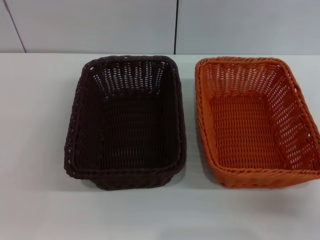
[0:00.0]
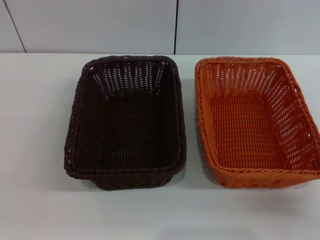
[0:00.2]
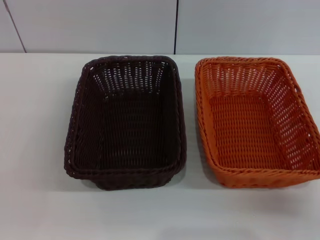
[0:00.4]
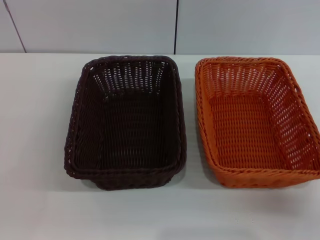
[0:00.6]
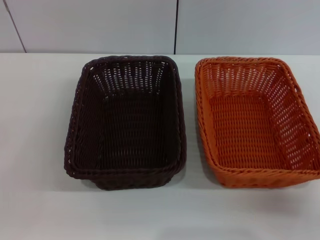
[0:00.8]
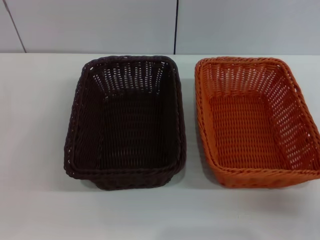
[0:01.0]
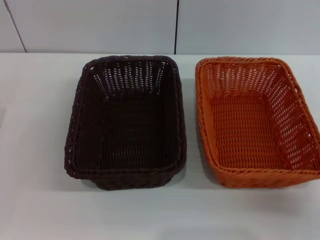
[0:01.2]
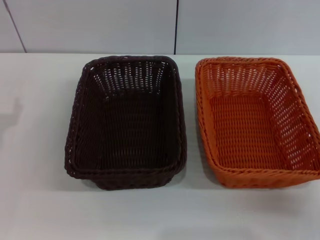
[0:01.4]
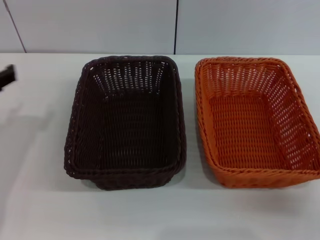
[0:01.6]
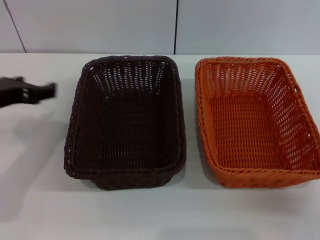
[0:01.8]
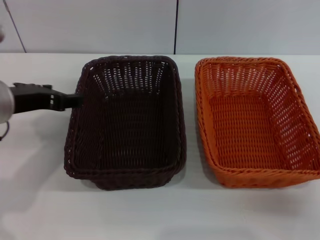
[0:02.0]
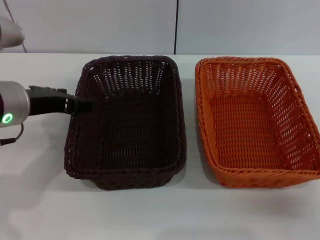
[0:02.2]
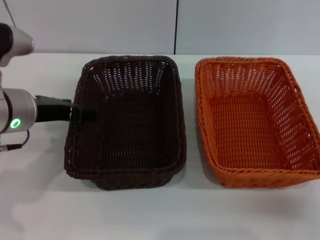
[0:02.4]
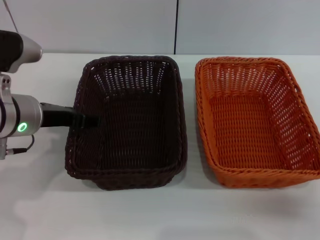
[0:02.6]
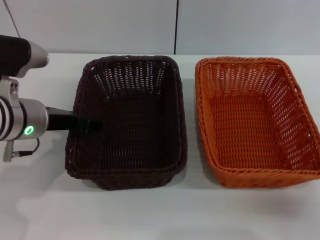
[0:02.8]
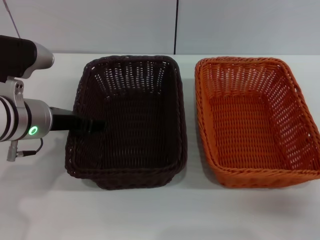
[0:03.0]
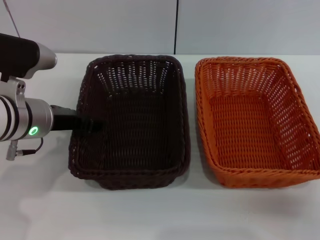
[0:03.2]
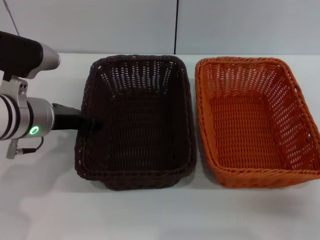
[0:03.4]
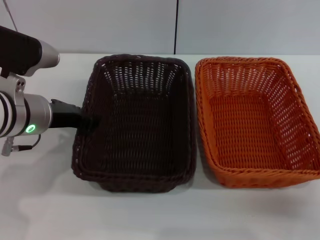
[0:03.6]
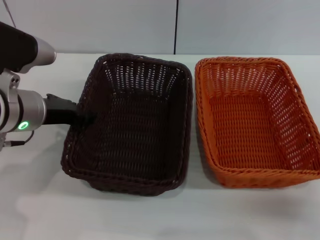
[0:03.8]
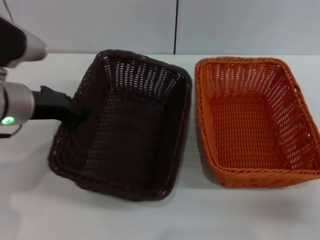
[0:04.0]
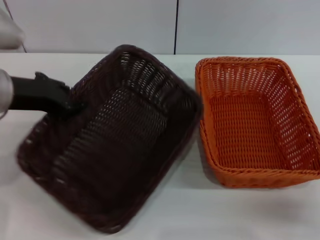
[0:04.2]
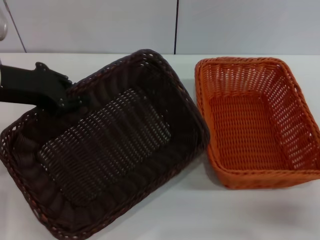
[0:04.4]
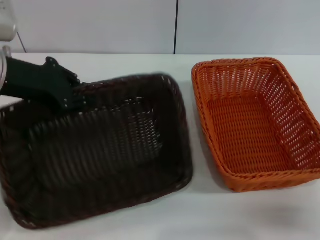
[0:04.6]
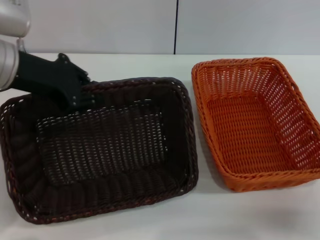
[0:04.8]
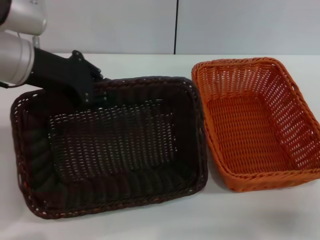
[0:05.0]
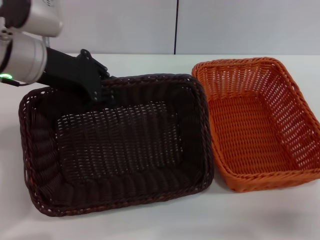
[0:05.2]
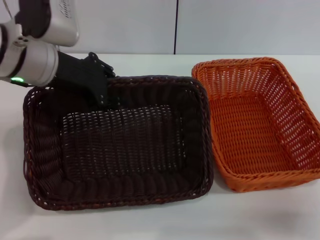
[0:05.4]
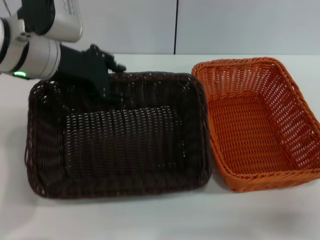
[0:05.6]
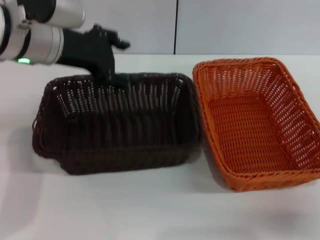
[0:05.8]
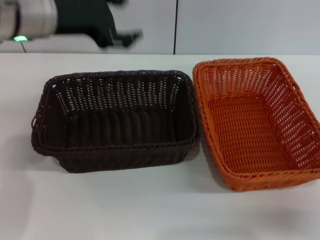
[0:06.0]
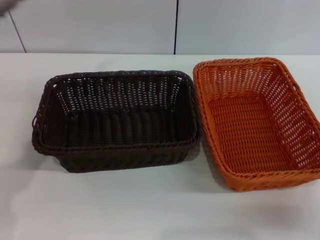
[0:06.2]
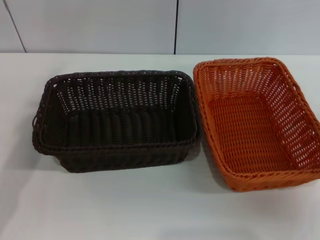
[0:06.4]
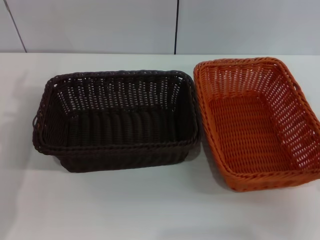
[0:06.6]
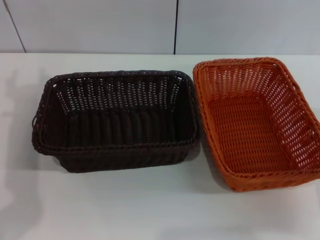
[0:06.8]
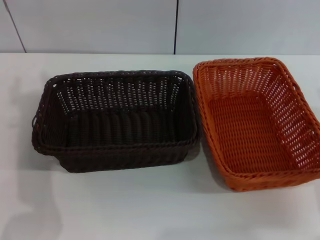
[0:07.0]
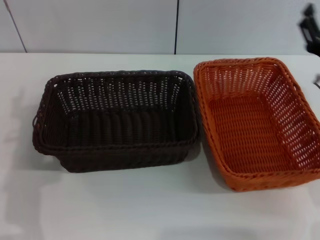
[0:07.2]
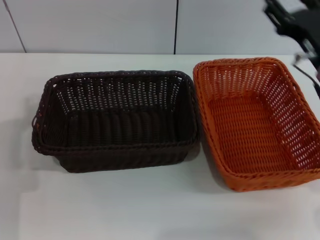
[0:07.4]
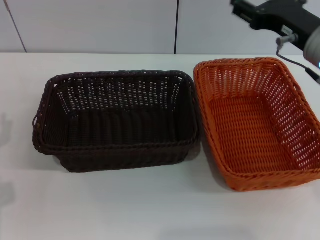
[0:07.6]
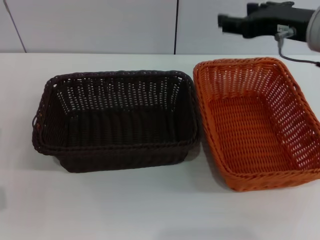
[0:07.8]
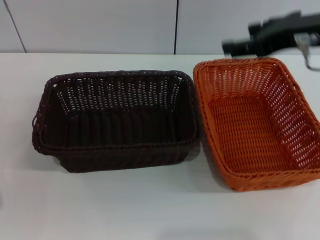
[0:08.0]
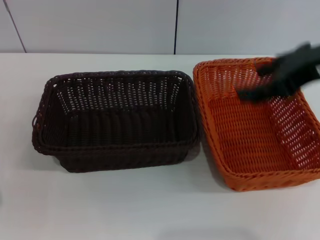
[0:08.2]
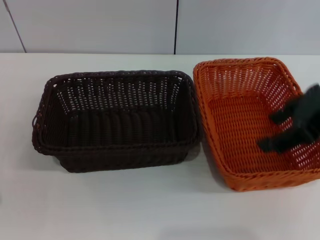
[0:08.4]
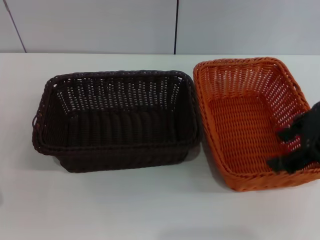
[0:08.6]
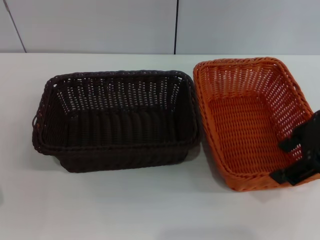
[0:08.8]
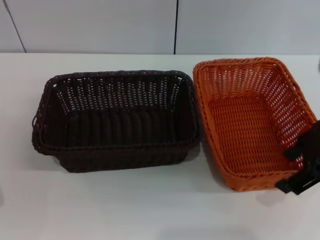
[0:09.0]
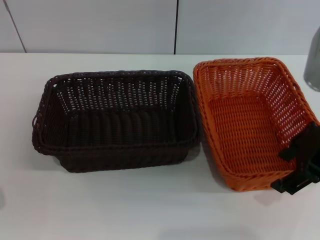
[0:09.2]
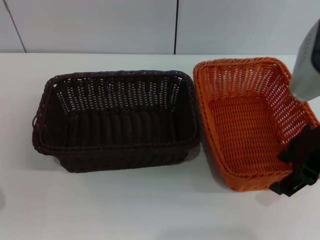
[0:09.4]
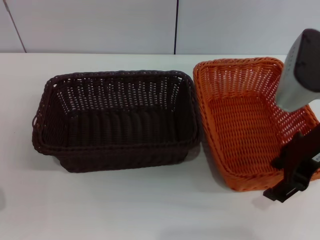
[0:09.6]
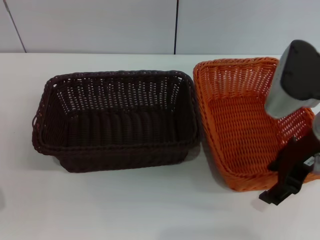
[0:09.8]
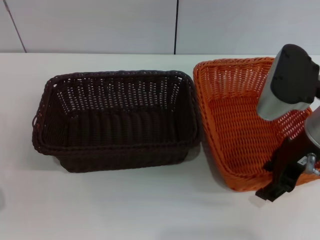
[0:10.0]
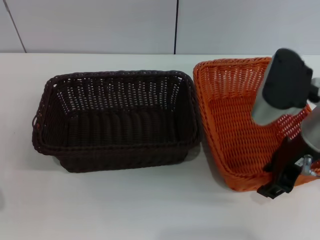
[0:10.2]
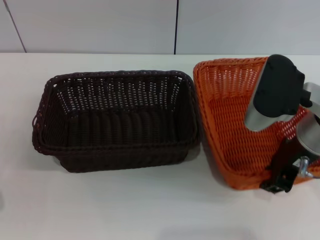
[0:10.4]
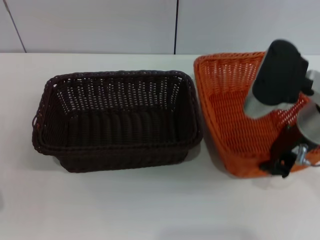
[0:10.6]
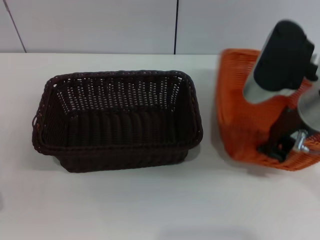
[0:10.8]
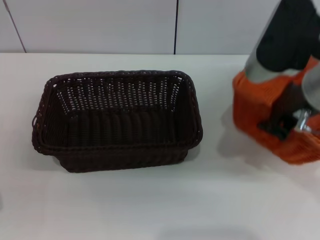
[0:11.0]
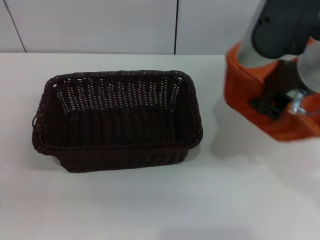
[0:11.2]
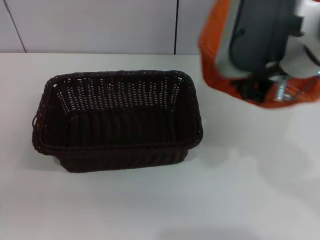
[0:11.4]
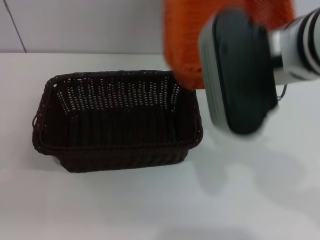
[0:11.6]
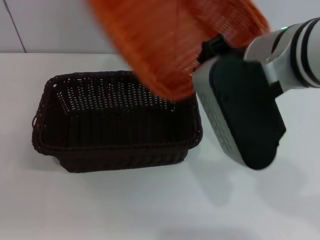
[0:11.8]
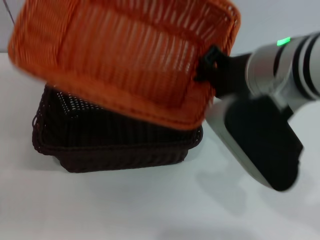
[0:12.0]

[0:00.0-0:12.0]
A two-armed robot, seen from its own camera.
Step, 0:00.0 to 0:04.0: Pick up the dark basket with the left gripper.
Step, 0:04.2 to 0:05.6: Place the dark basket in the center of view with the left gripper.
Step, 0:05.8 to 0:10.6: Pick up the light basket with the right gripper.
0:01.6 to 0:03.0: The left gripper moves to the right, approximately 10 cm.
0:03.0 to 0:04.4: The left gripper travels upward by roughly 10 cm, and closes its fingers.
0:04.4 to 0:06.0: The left gripper shifts approximately 5 cm to the right, and opens up.
0:06.0 to 0:07.6: The left gripper goes roughly 25 cm downward, backward and to the left; the right gripper shifts some 20 cm upward, forward and to the left.
0:07.6 to 0:09.0: The right gripper goes approximately 5 cm backward.
0:09.0 to 0:10.4: The right gripper moves downward, roughly 5 cm.
0:10.4 to 0:12.0: The right gripper goes about 10 cm upward and to the left, and closes.

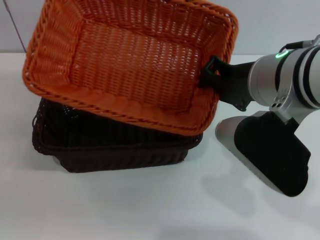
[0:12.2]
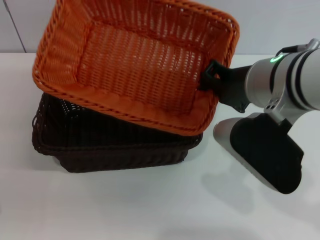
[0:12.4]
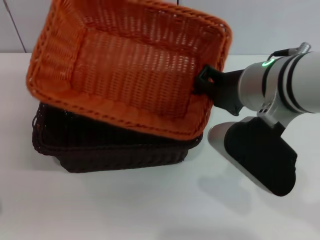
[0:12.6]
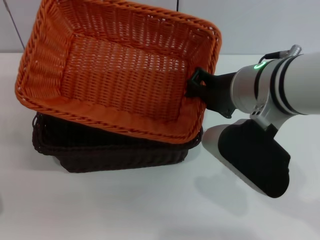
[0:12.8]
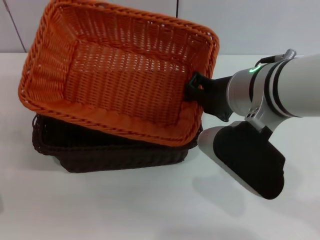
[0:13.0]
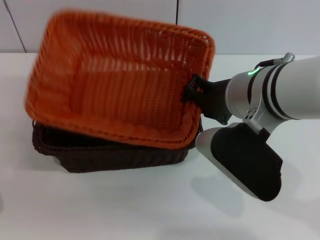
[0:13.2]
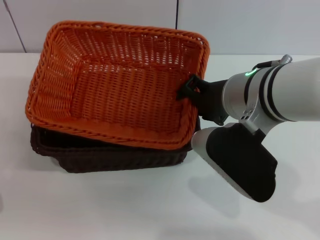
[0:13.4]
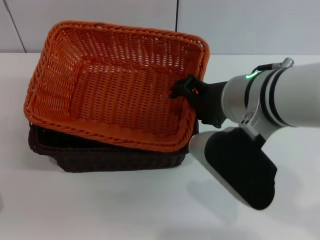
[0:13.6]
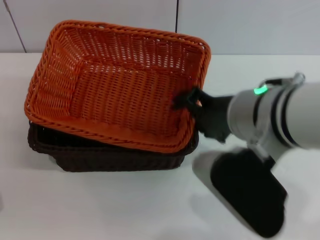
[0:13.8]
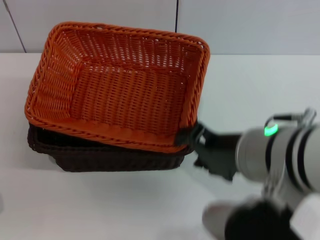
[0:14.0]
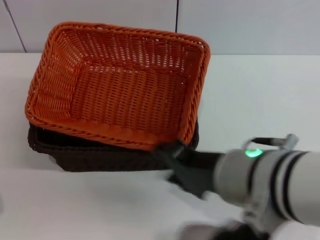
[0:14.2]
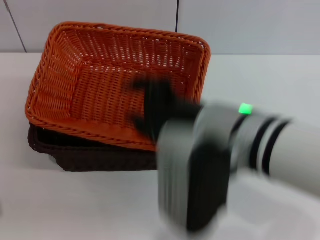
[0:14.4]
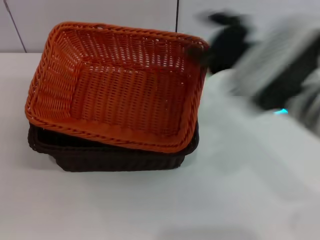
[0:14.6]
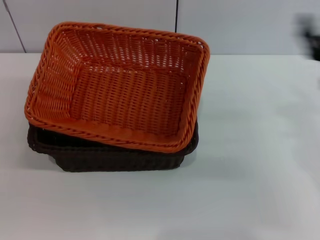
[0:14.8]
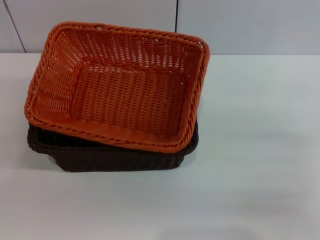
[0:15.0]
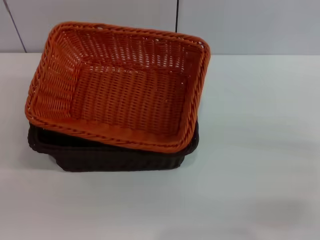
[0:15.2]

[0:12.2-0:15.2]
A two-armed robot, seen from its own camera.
0:12.2 to 0:13.8: The right gripper opens its fingers.
0:13.8 to 0:15.2: The right gripper goes approximately 25 cm to the right and downward.
